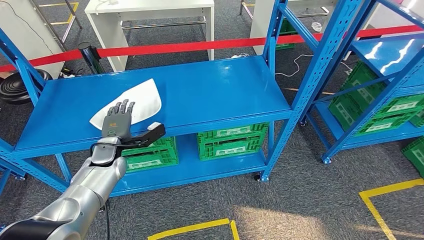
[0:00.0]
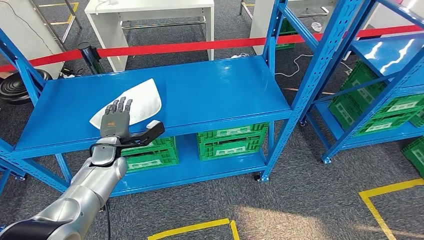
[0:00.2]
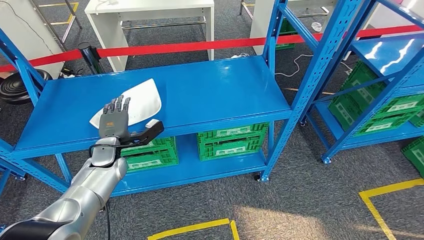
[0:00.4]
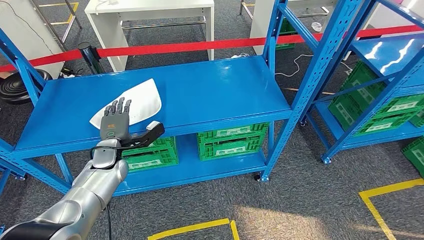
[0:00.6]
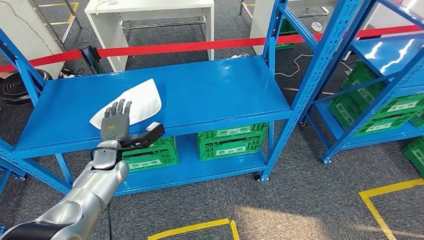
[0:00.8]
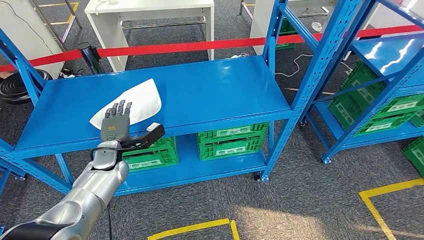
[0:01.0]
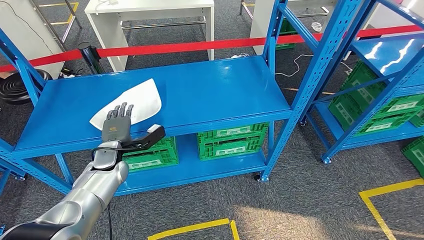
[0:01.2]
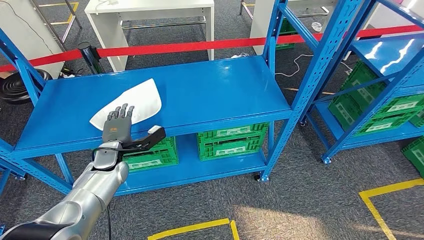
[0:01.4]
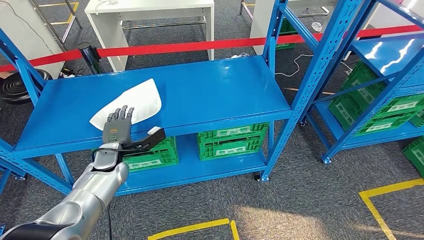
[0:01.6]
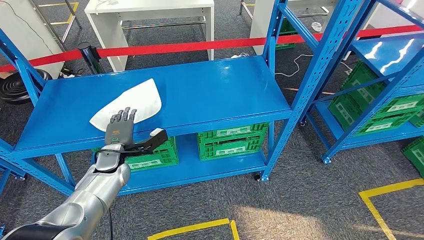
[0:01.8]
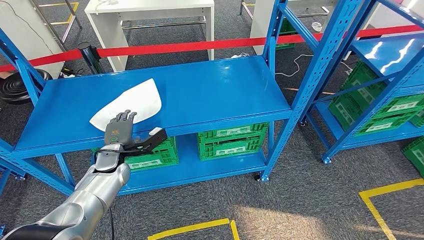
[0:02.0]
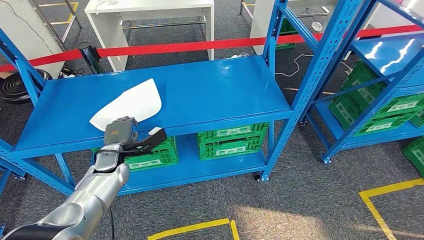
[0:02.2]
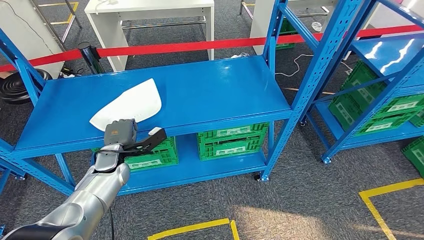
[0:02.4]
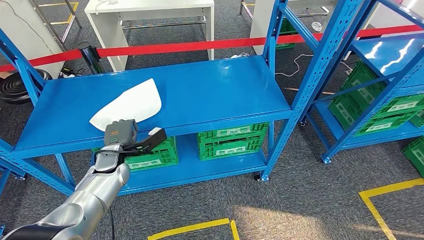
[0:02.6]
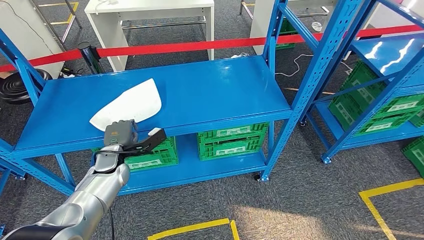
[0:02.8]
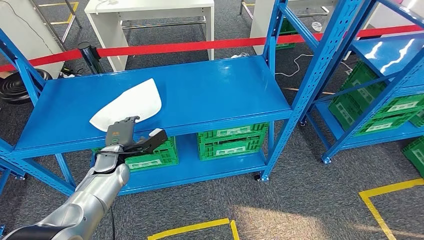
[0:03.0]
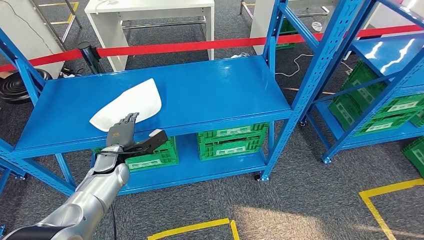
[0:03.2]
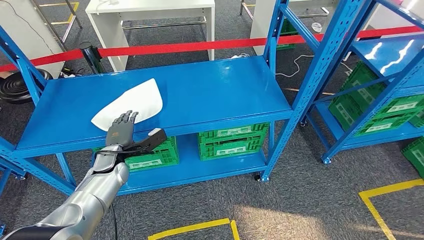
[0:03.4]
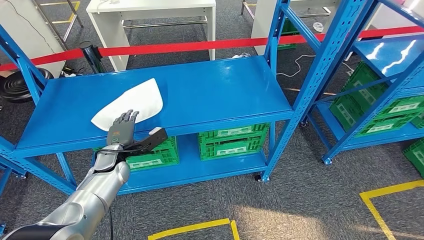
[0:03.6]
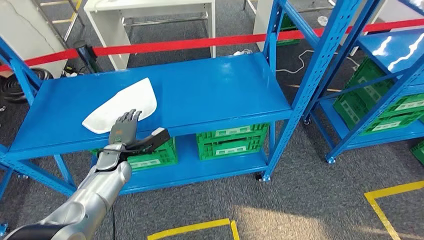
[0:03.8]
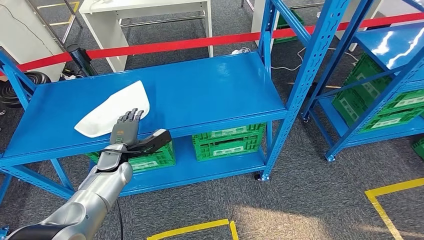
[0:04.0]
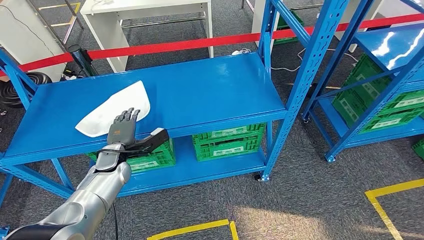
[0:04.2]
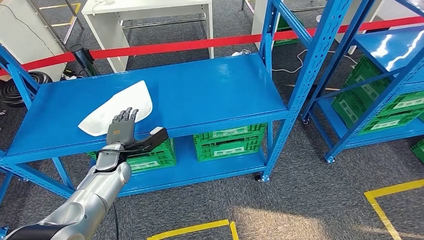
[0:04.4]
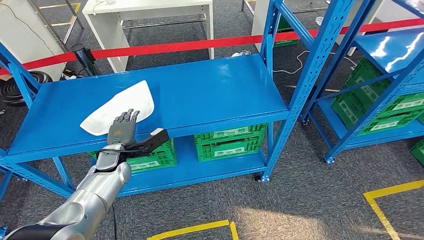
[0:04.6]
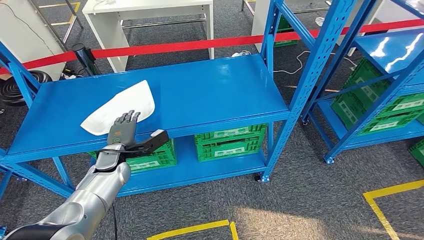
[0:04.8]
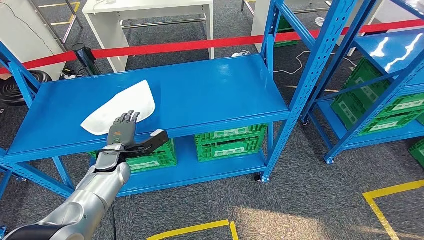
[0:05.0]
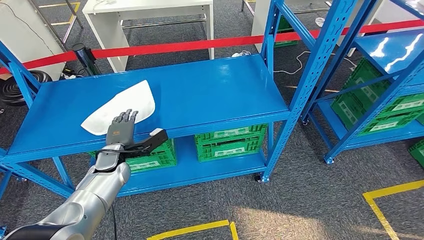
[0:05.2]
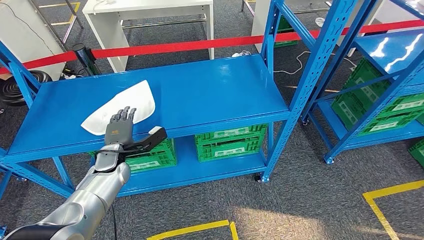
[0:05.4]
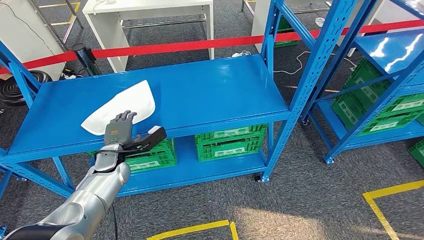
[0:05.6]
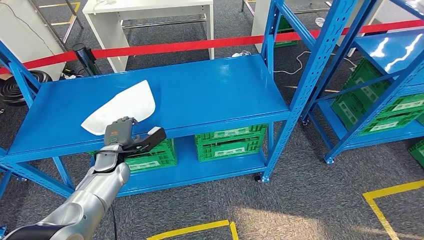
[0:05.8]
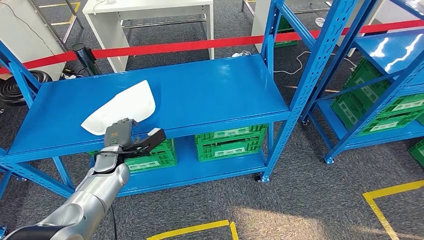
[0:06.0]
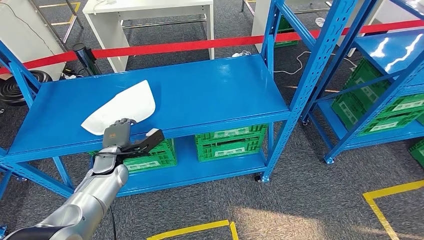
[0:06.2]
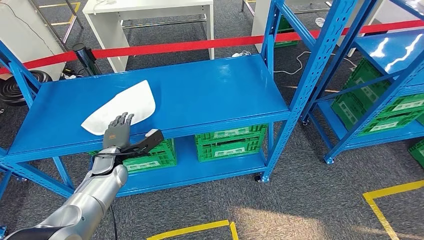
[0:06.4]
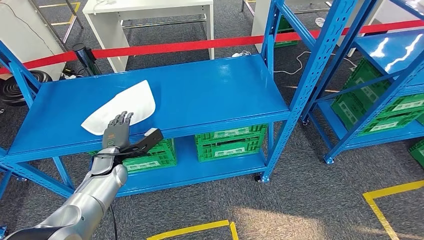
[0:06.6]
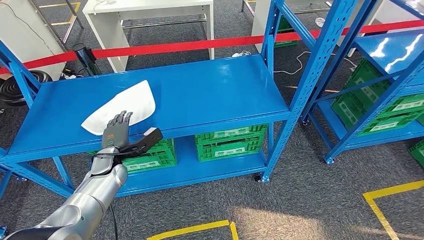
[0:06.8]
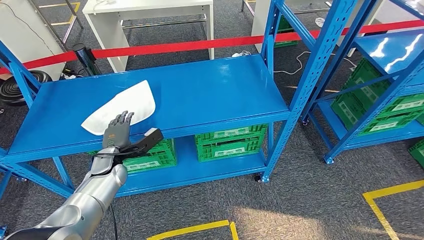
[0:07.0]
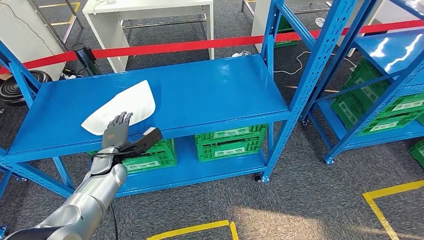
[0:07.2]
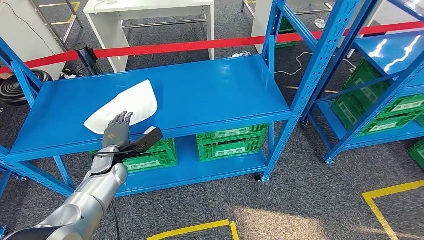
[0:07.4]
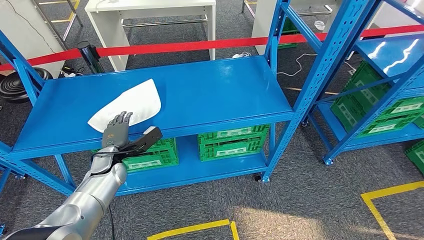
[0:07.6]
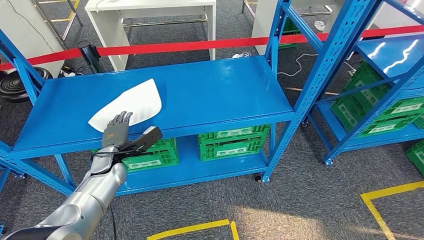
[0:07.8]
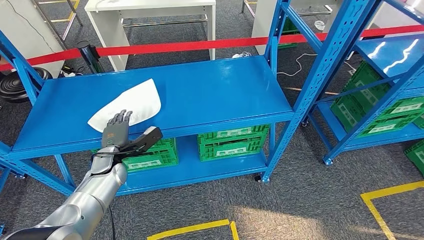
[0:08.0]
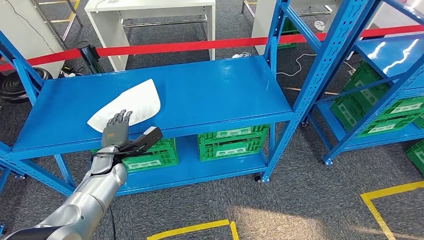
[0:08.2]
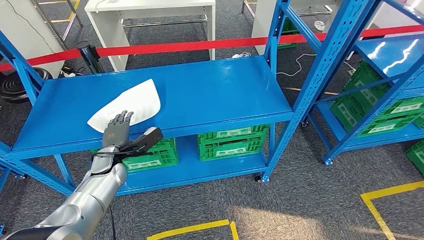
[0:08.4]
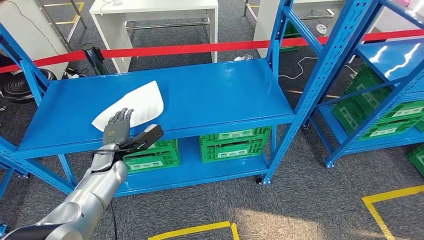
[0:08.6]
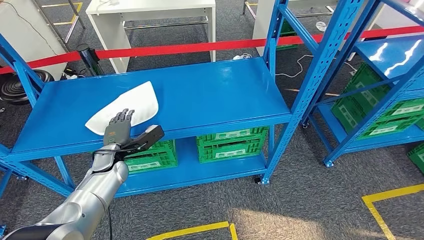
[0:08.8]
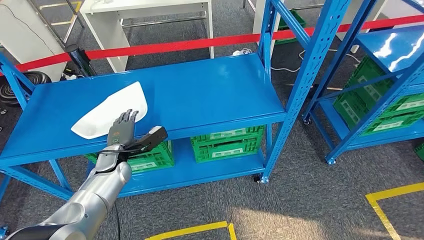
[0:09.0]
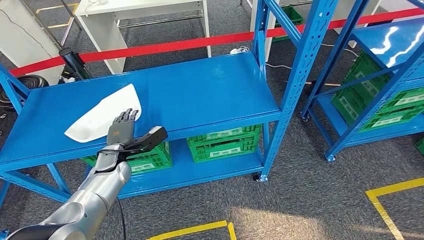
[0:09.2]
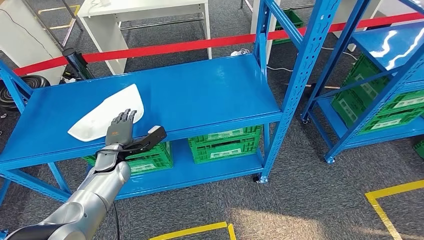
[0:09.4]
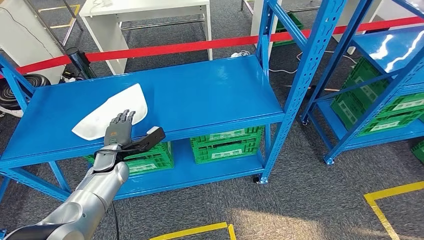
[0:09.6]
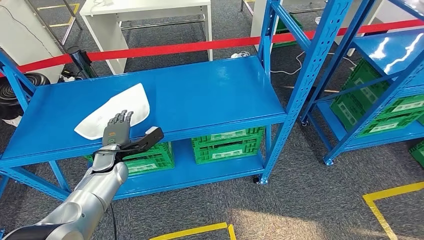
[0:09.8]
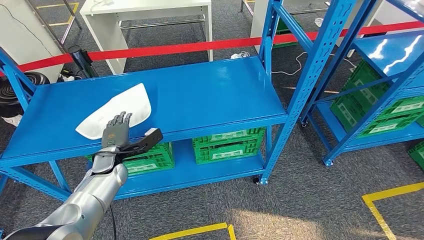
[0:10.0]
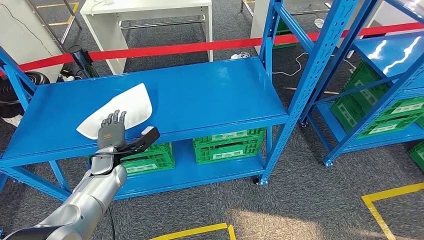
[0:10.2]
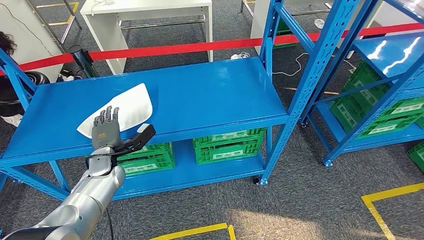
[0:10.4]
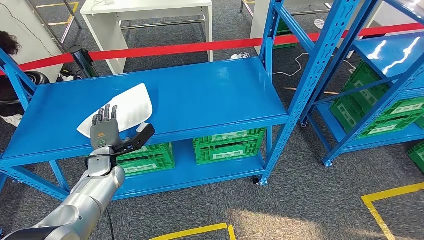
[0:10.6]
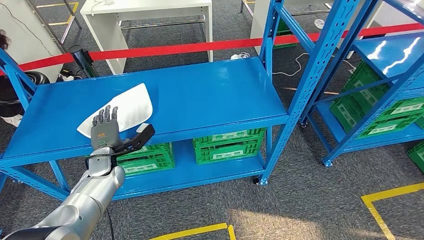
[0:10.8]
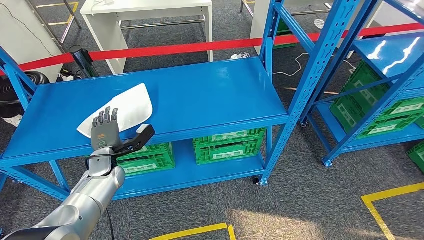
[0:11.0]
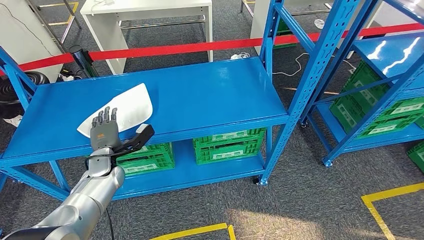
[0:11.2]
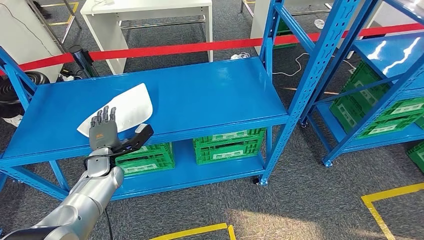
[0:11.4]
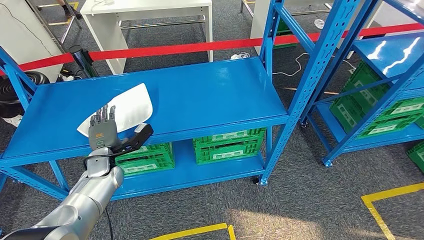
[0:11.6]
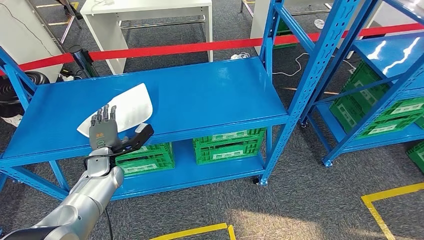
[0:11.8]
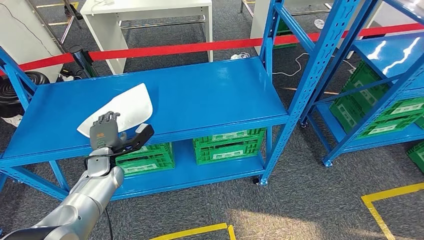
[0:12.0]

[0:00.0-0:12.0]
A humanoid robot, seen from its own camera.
0:00.0 to 0:04.4: There are only small adjustments of the hands.
0:04.4 to 0:06.0: Neither hand changes place.
0:06.0 to 0:07.6: There are only small adjustments of the hands.
0:10.4 to 0:12.0: Neither hand changes place.

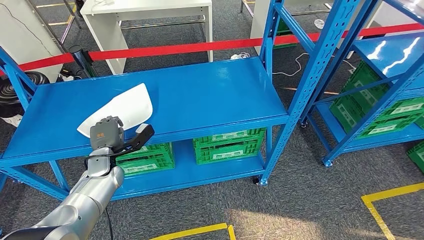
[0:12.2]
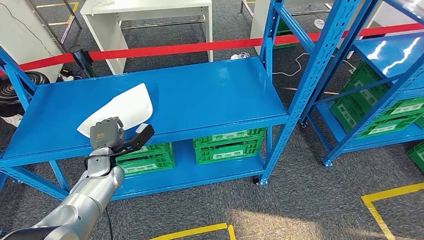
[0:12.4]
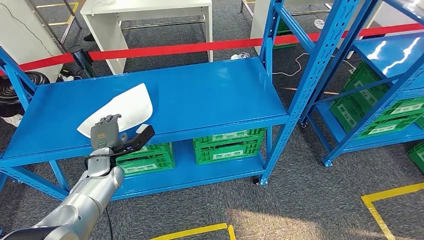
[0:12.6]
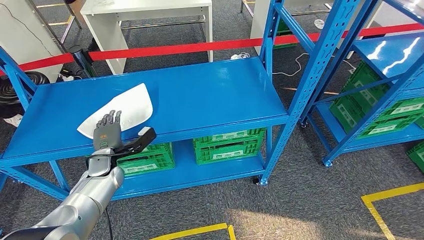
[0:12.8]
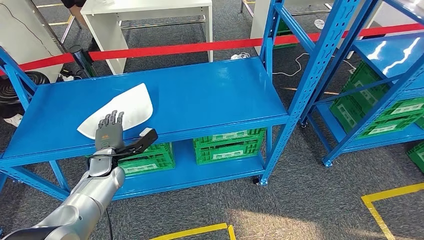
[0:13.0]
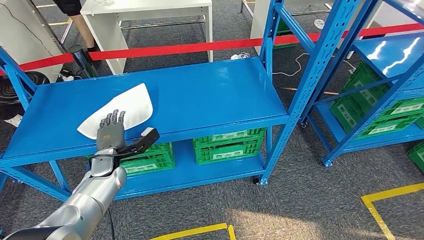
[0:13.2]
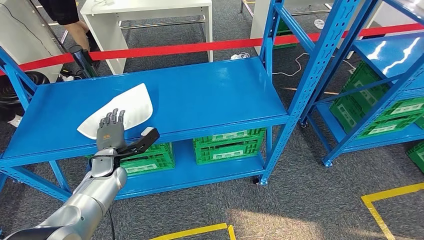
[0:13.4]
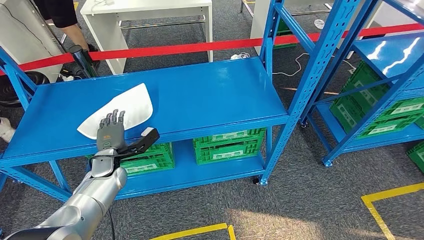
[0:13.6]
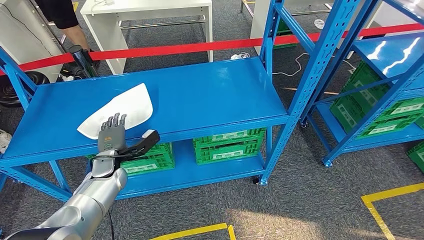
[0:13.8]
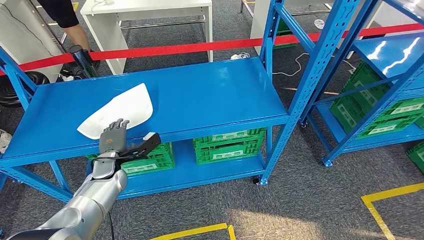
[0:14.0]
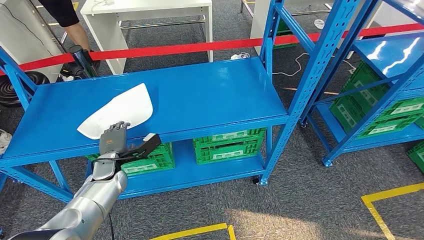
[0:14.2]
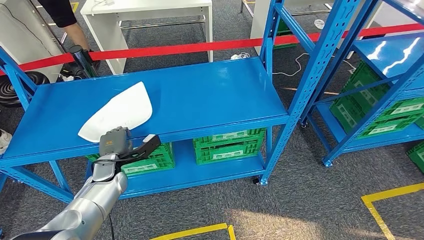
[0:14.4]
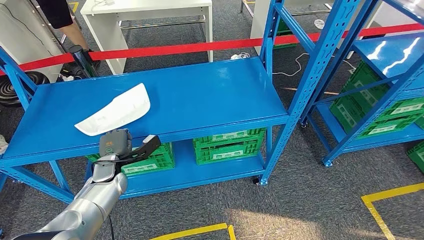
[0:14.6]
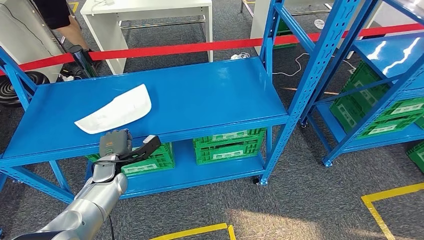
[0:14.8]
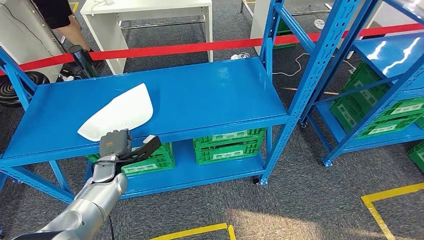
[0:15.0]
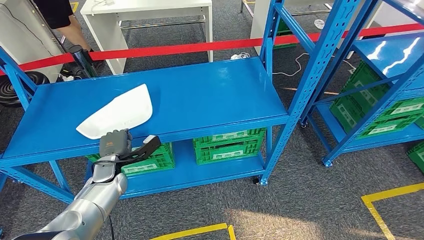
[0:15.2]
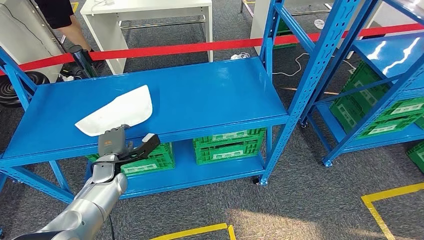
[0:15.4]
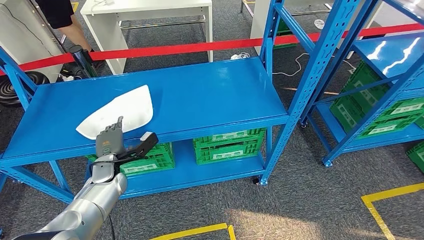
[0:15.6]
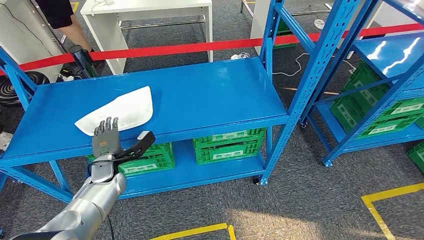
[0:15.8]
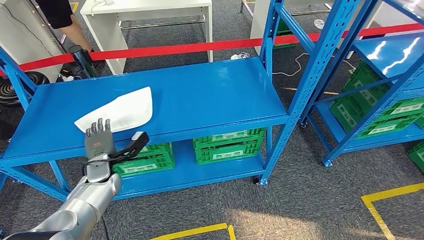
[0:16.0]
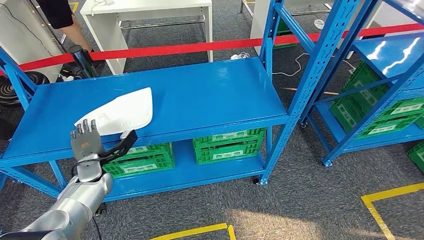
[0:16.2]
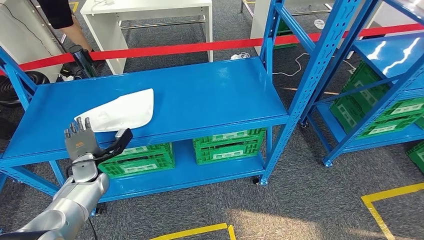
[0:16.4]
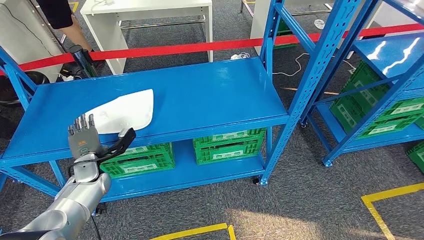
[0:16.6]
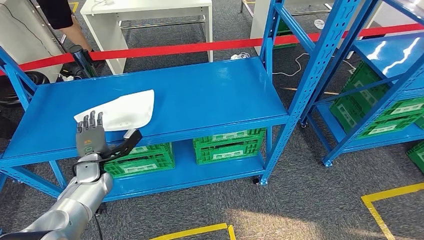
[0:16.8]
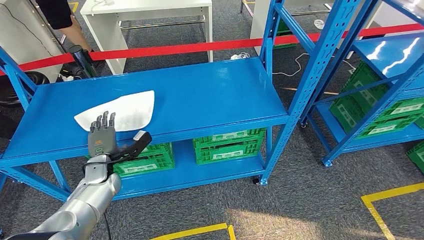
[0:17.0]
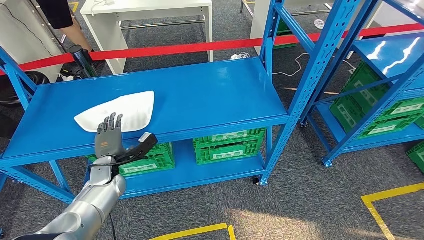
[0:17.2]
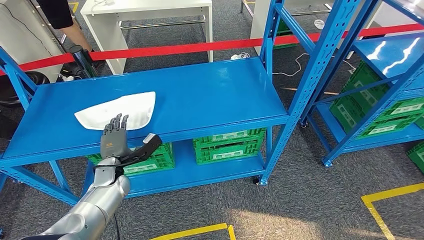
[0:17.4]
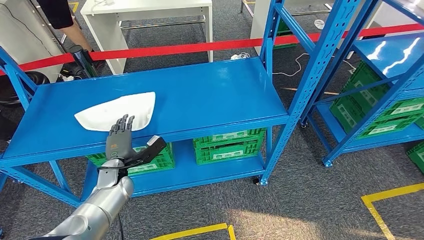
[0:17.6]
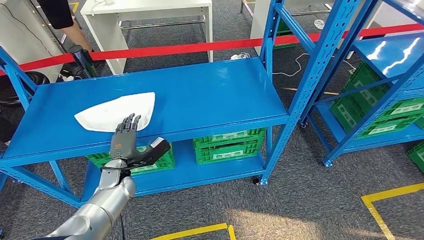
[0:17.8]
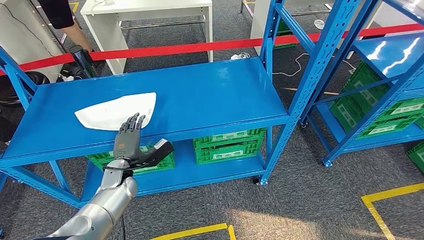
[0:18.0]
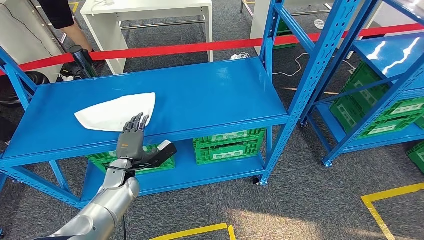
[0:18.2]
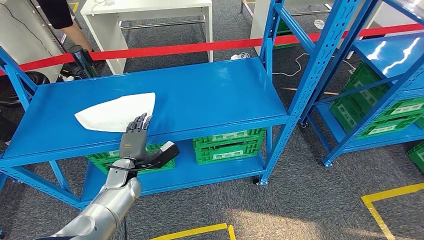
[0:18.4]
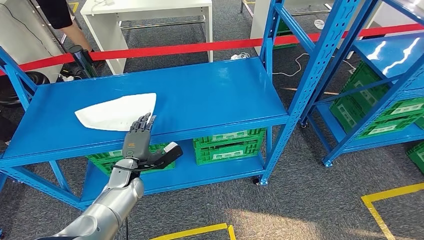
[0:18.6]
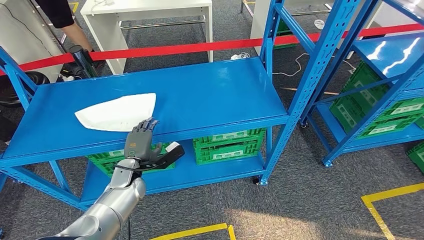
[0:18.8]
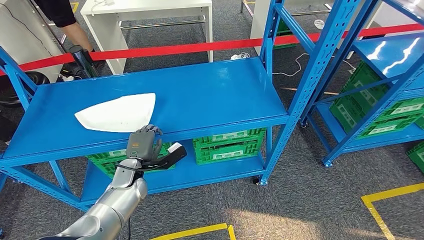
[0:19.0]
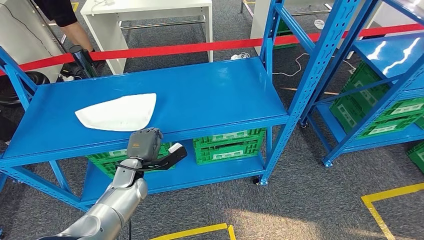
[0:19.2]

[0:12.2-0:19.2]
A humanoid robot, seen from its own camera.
0:12.2 to 0:15.0: The hands make only small movements.
0:15.0 to 0:16.4: The left hand travels to the left by approximately 5 cm.
0:16.4 to 0:17.8: The left hand goes some 10 cm to the right.
0:17.8 to 0:19.2: There are only small adjustments of the hands.
